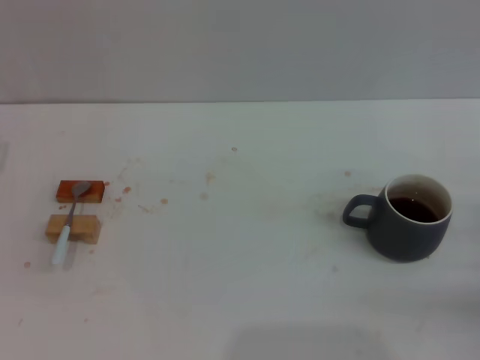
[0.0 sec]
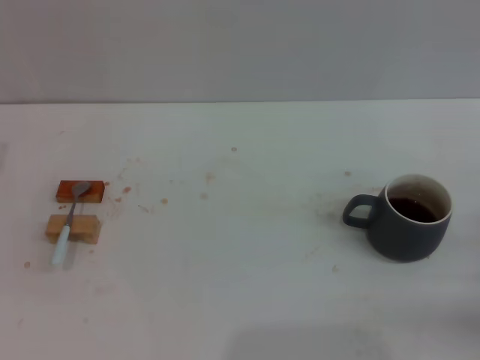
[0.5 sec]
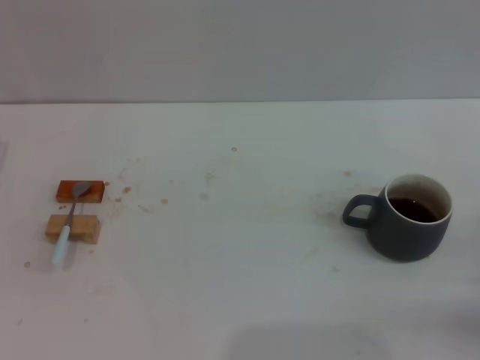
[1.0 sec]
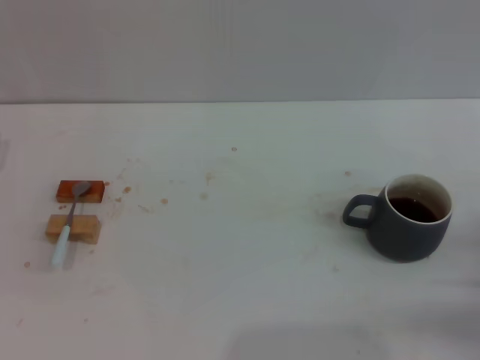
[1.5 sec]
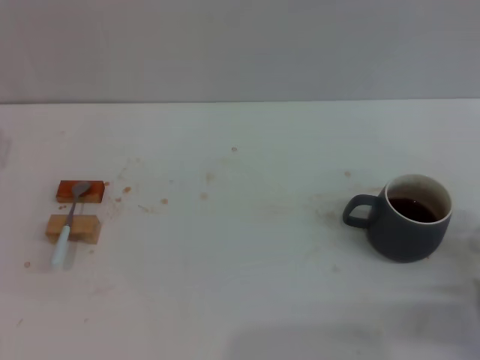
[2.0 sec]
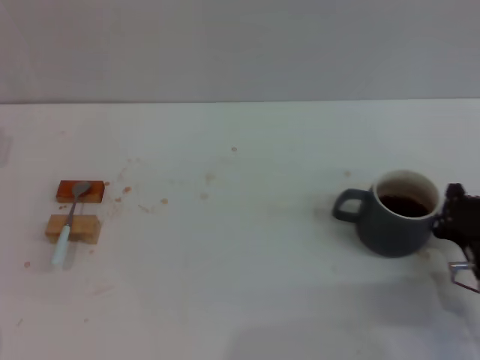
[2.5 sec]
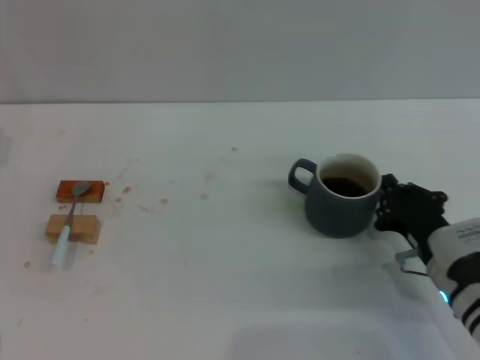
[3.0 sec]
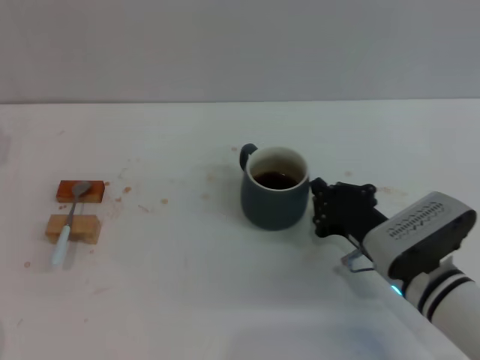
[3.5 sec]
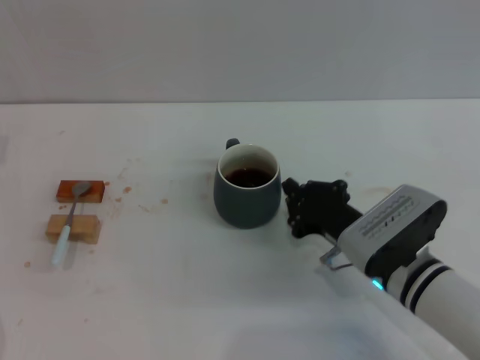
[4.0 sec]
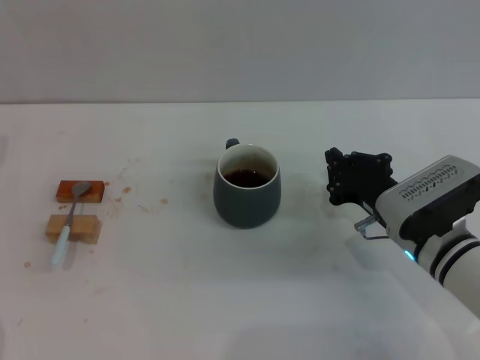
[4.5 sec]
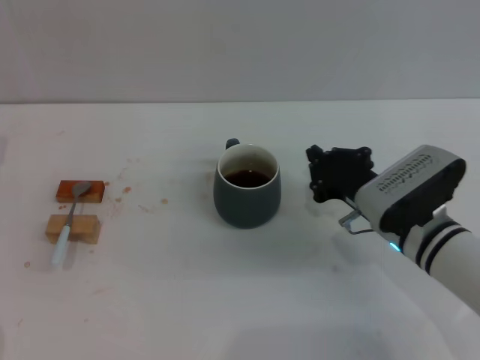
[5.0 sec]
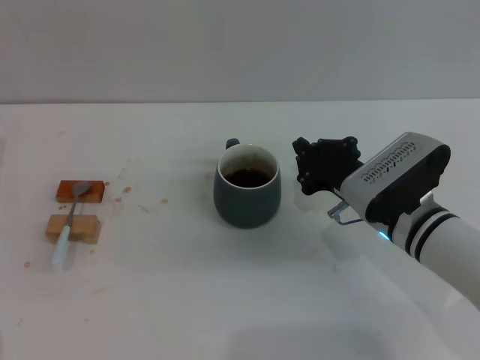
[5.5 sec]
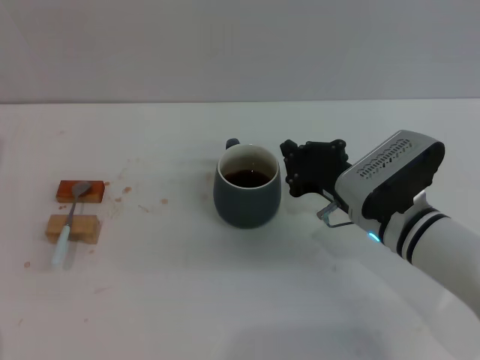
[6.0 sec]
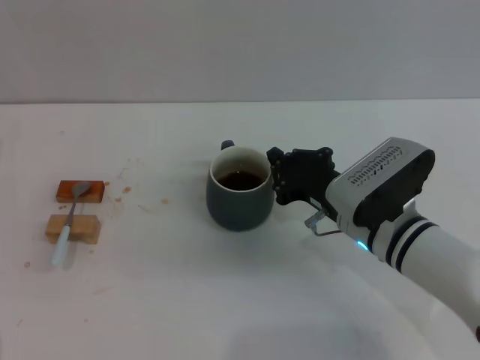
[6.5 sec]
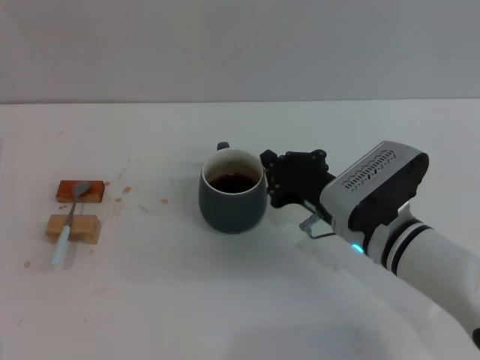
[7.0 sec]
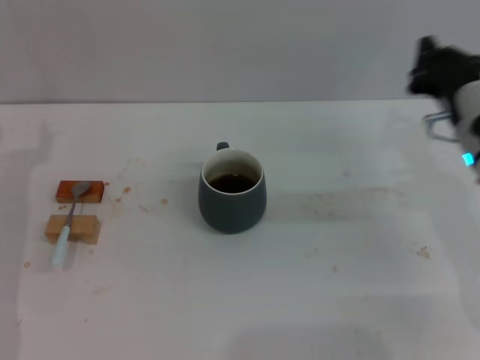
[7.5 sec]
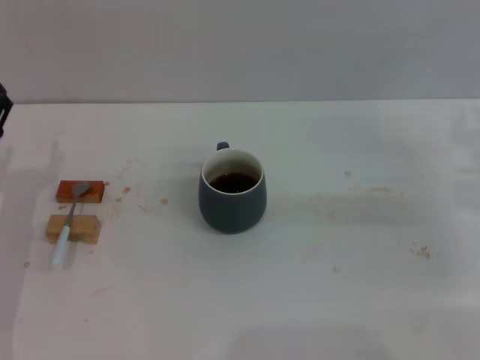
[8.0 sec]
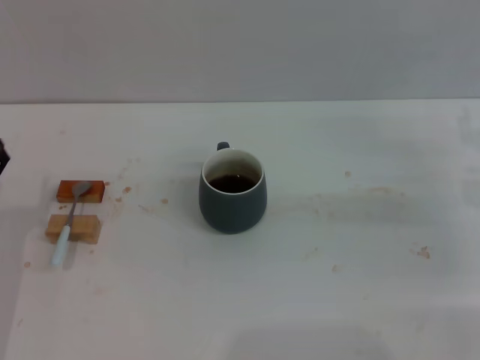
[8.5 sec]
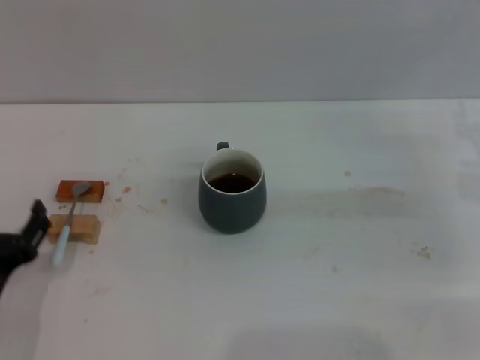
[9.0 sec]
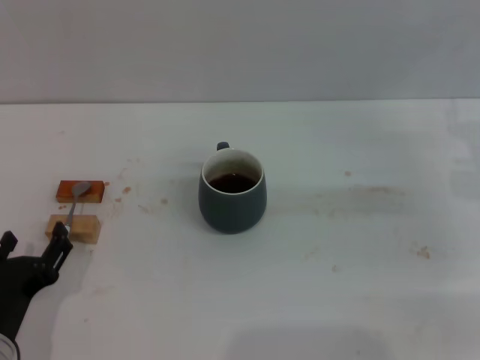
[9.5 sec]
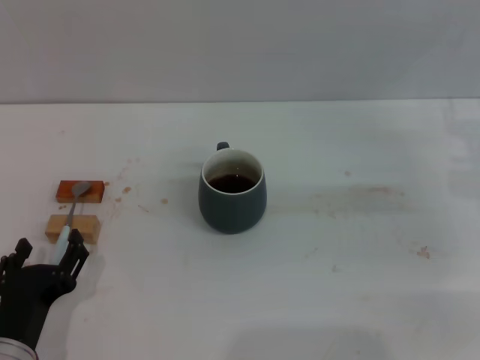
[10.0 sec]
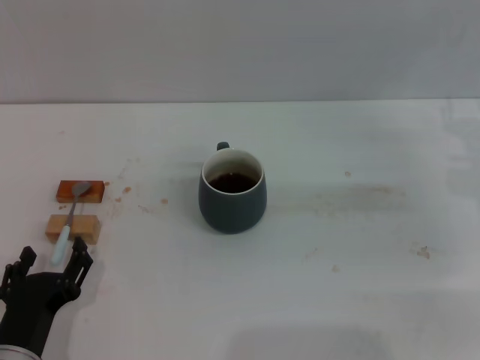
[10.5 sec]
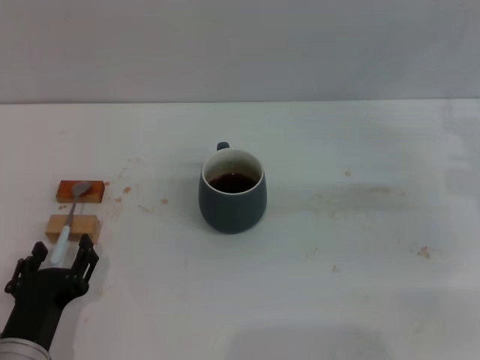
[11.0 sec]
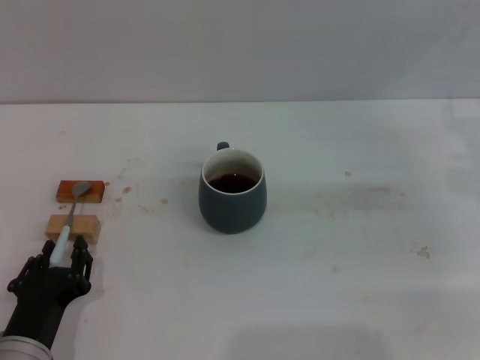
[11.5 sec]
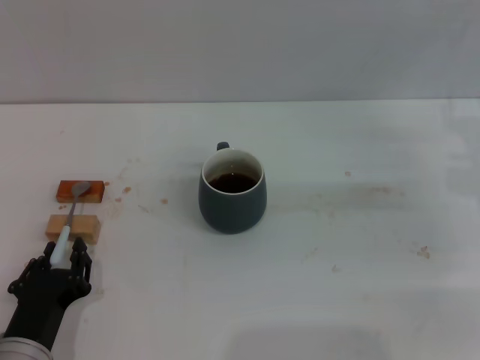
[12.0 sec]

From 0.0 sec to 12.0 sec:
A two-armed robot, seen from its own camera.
Task of the whole recording: Move the grey cup to the center, lift the blue spoon, stir it three times in the cup, and put the spoon into the cup.
Step, from 0.0 sec to 7.0 sec: Move the cup with coffee to the center of view with the right gripper.
From 0.0 sec to 2.0 sec: The right gripper goes approximately 5 cm to the left, and closes its fingers.
From 2.0 sec to 4.0 sec: The right gripper travels to the left and forward by some 15 cm.
From 4.0 sec to 6.0 sec: The grippers stay close to where they were, moving slightly.
From 6.0 sec to 8.0 sec: The left gripper shifts by some 5 cm; the right gripper shifts roughly 15 cm to the right.
From 8.0 sec to 10.0 sec: The left gripper is displaced backward and to the right by about 15 cm.
From 10.0 sec to 12.0 sec: The left gripper closes up.

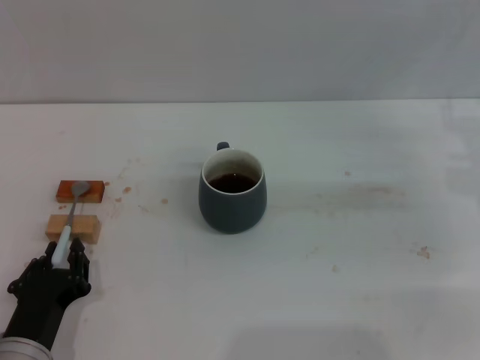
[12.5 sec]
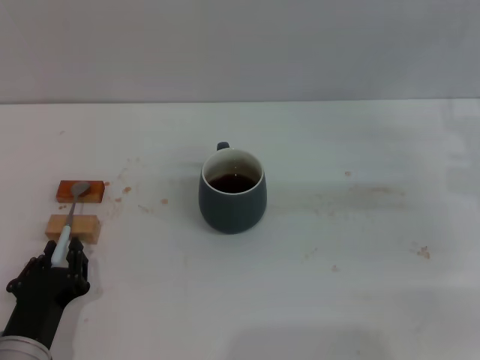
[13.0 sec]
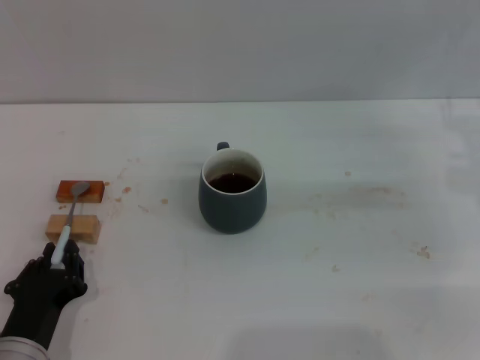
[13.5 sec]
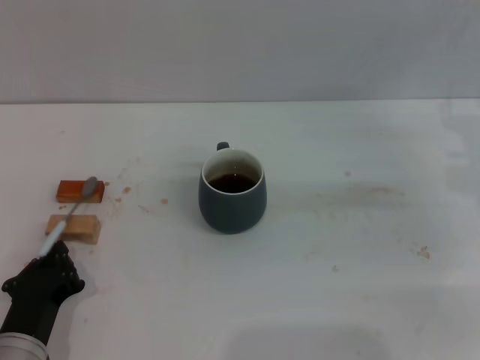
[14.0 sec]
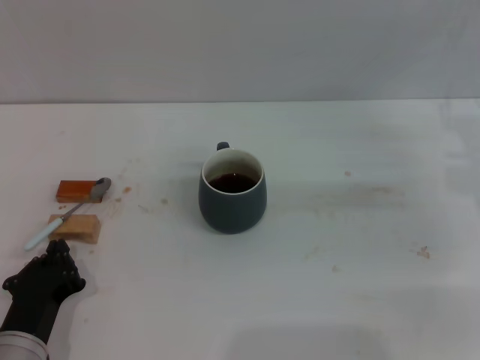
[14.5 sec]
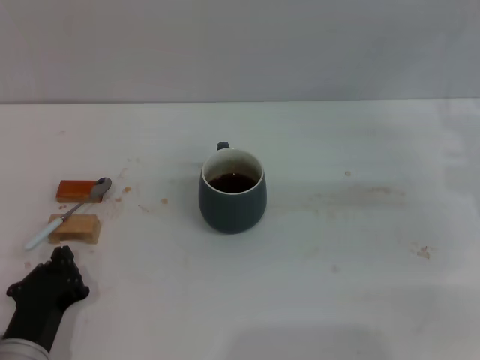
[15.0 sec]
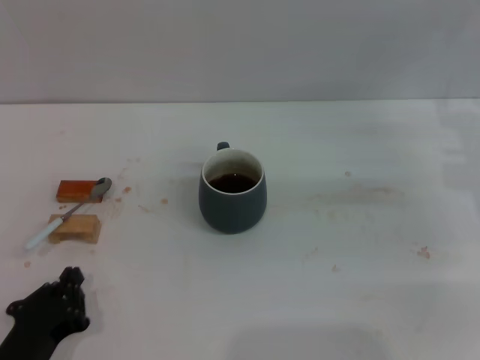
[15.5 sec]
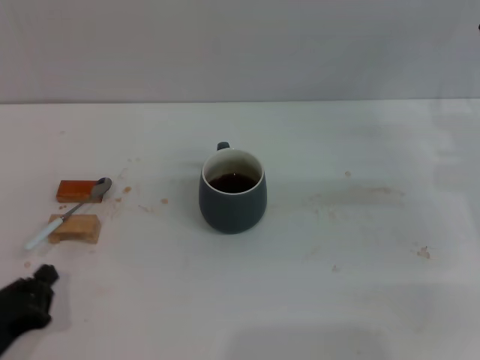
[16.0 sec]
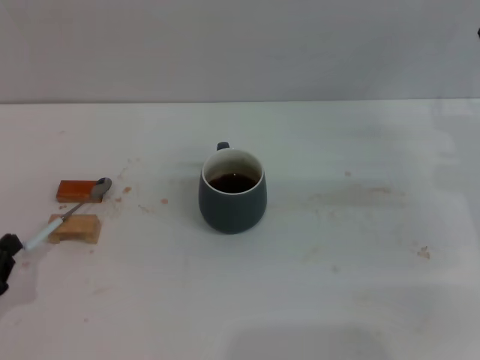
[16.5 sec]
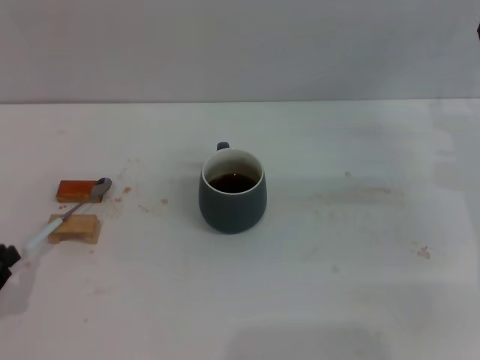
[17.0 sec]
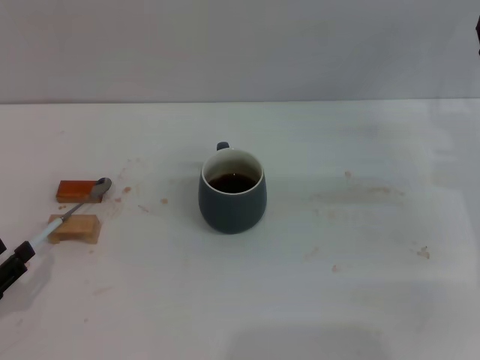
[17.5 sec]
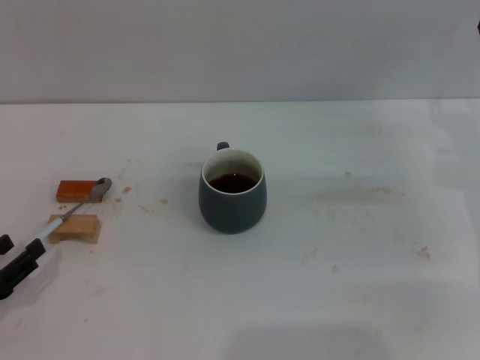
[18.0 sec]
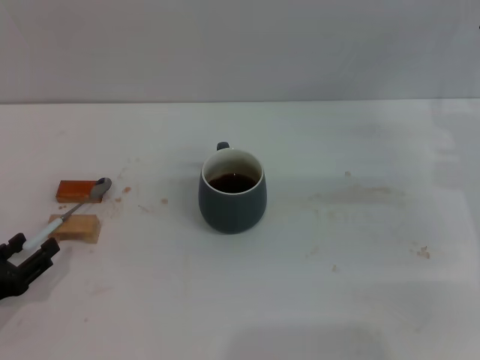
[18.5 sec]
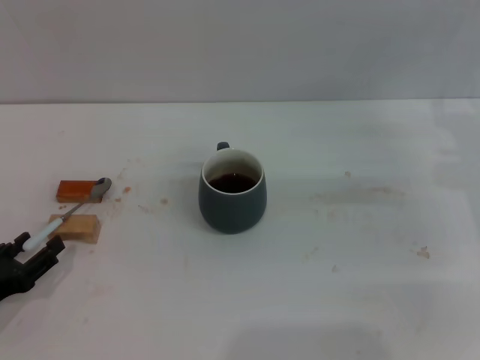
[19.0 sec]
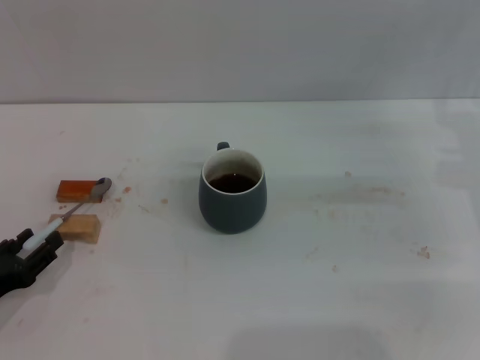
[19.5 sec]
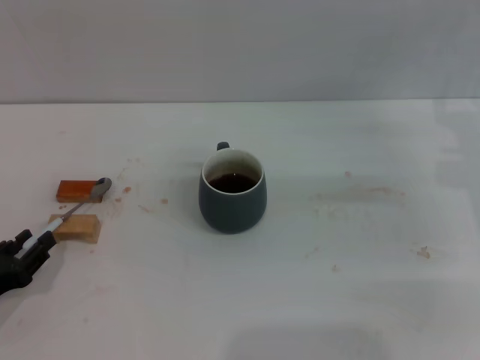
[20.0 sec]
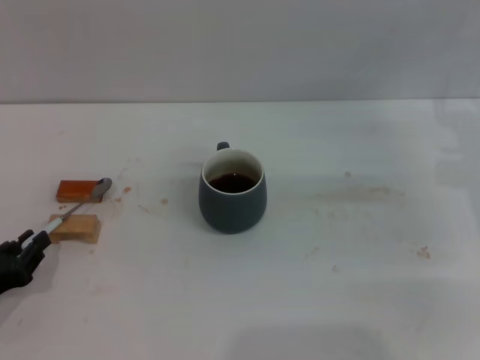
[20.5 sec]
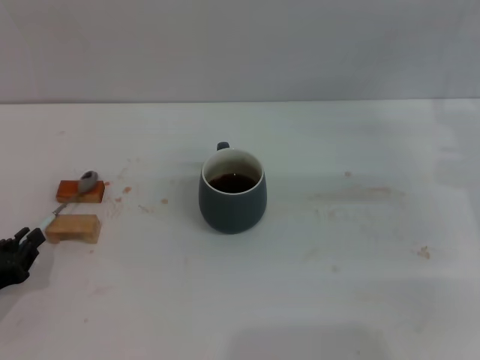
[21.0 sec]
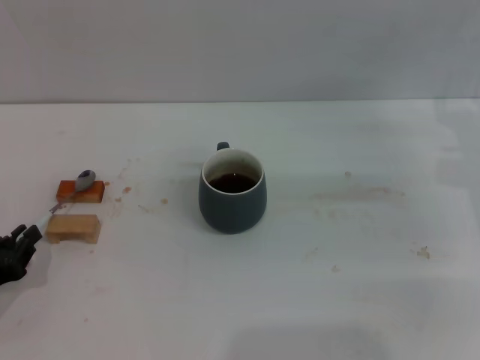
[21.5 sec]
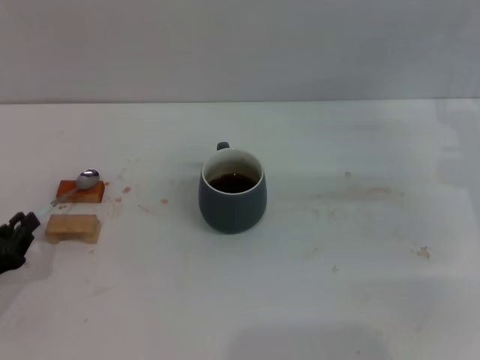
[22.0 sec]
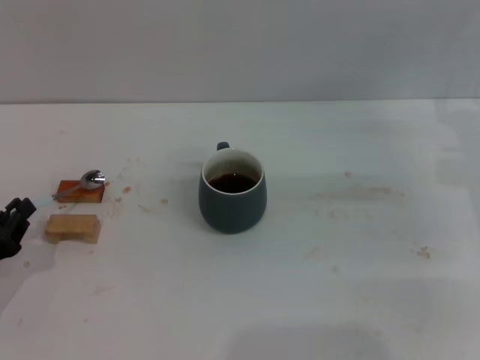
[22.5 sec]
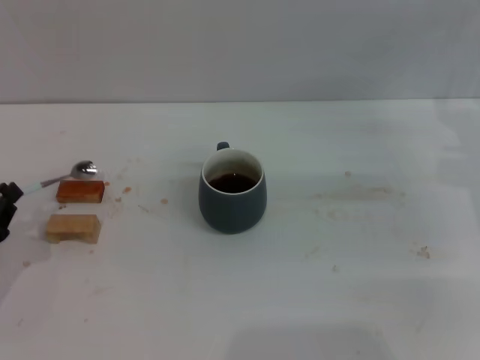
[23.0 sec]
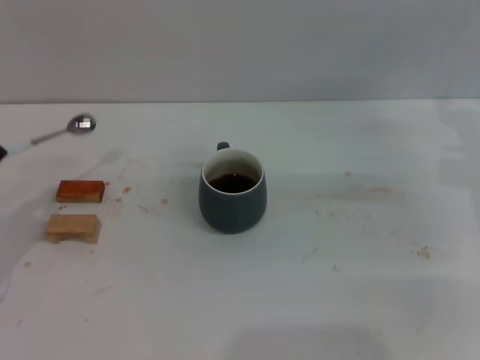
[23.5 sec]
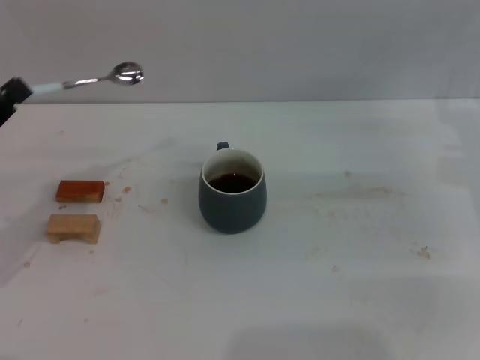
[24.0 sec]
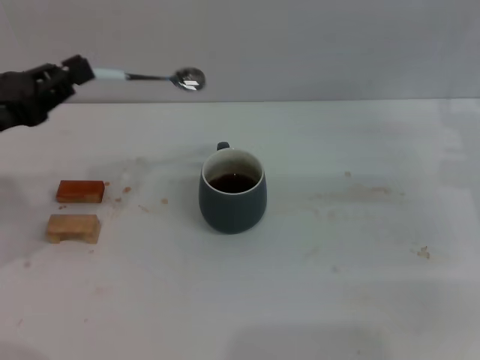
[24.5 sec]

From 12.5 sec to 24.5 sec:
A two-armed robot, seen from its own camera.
Task of the whole recording: Move the grey cup to the center, lift the blue spoon, stir it three times in the cup, and put the spoon into the cup.
Step, from 12.5 sec to 23.0 sec: Pick up the spoon with the left gripper.
From 12.5 sec to 14.5 sec: The left gripper closes.
From 14.5 sec to 16.5 sec: The left gripper is displaced to the left by approximately 15 cm.
From 16.5 sec to 18.5 sec: The left gripper opens.
From 18.5 sec to 20.5 sec: The left gripper closes up.
From 20.5 sec to 22.5 sec: The grippers make only small movements.
From 22.5 sec to 24.5 sec: The left gripper is displaced upward and forward by approximately 15 cm.

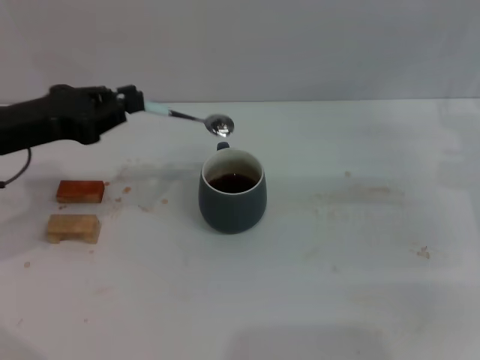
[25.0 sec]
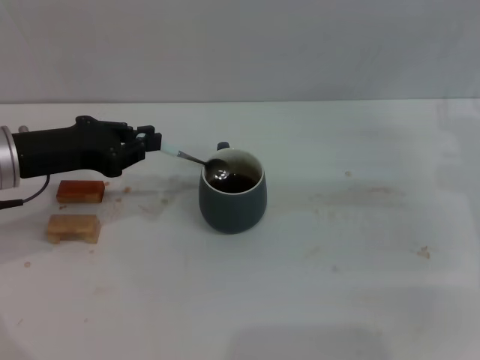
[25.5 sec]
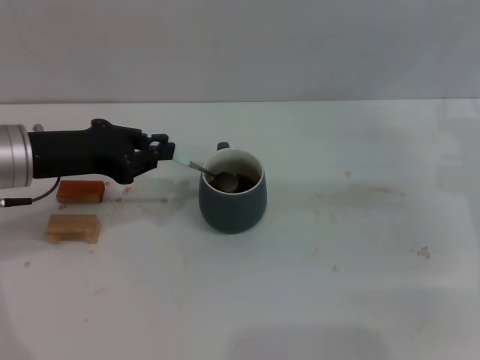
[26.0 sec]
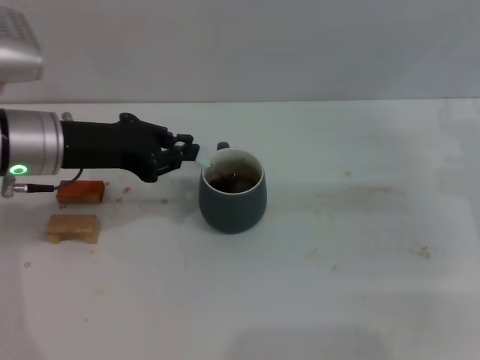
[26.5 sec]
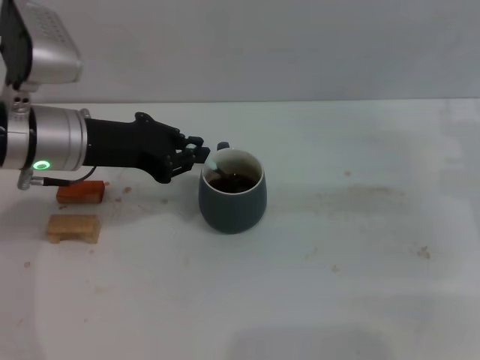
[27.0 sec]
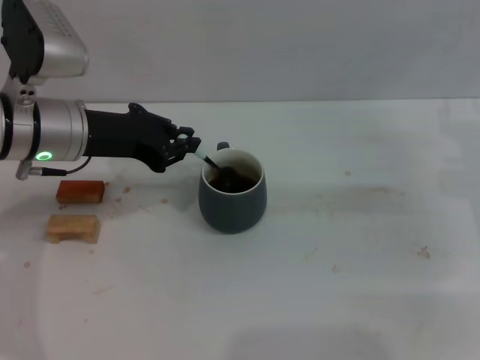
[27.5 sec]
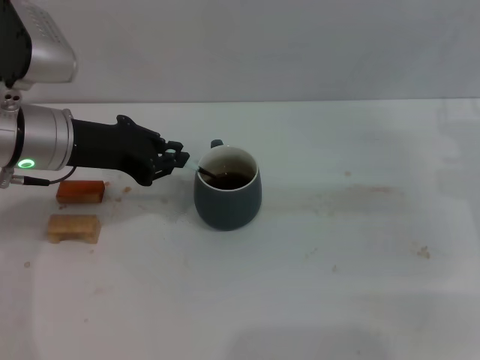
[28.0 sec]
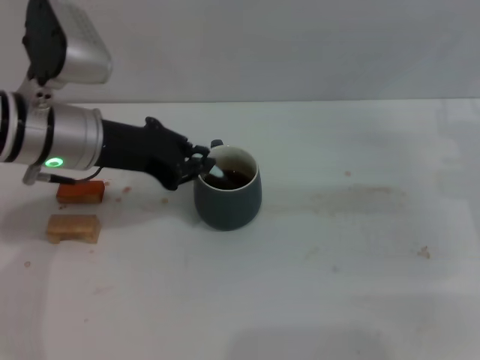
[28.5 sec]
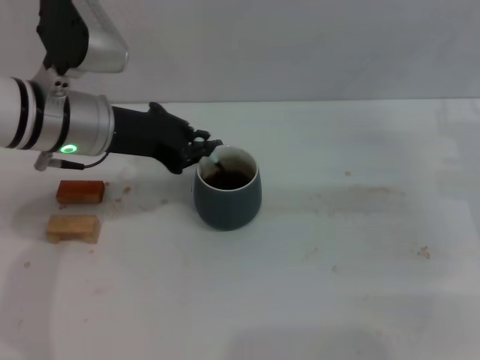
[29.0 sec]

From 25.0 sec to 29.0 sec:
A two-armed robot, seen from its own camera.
Task of the whole recording: Move the grey cup to the center, lift the blue spoon, stir it three times in the cup, and put the spoon into the cup.
From 25.0 sec to 27.0 sec: The left gripper heads to the right, covering roughly 5 cm.
From 27.0 sec to 29.0 sec: The grippers stay close to where they were, moving slightly.
